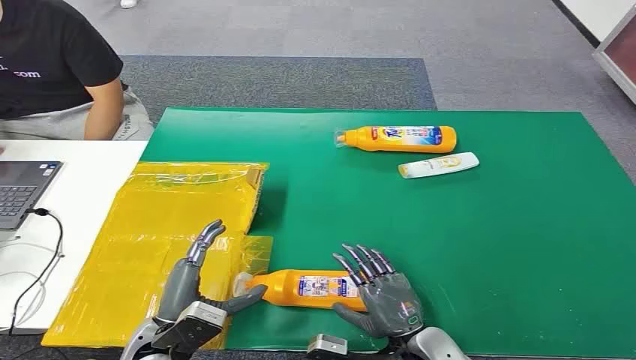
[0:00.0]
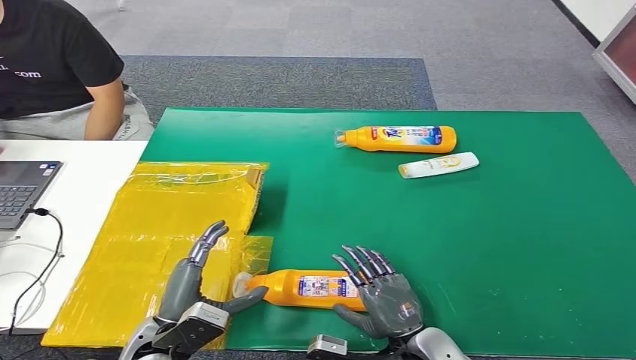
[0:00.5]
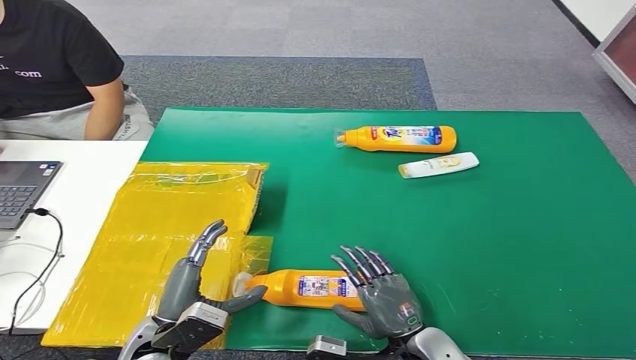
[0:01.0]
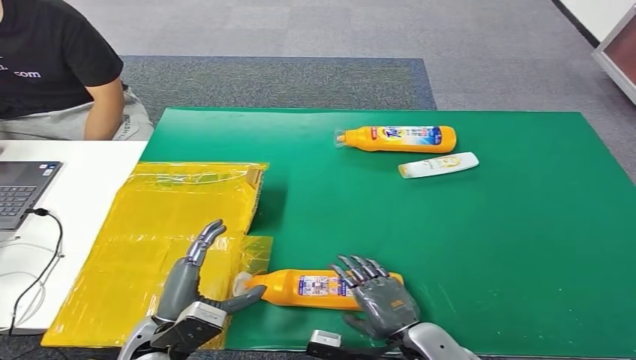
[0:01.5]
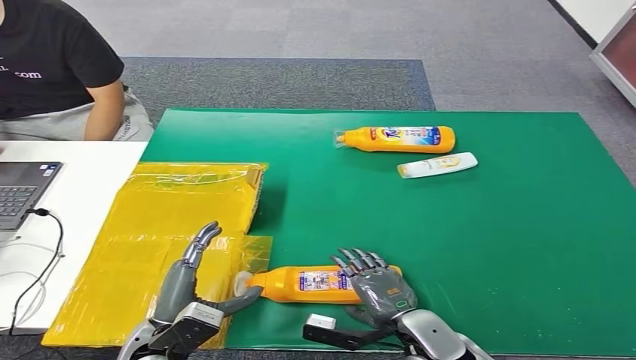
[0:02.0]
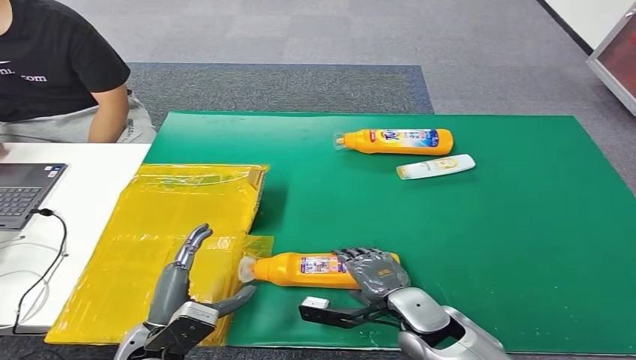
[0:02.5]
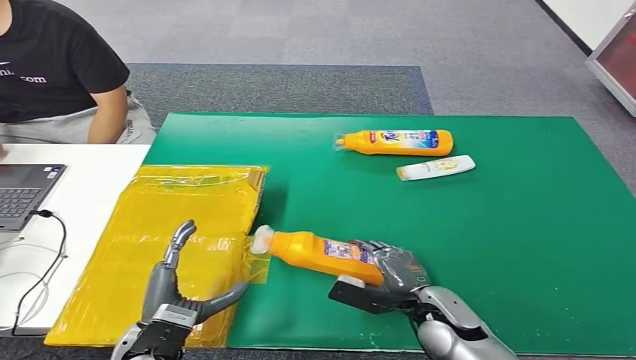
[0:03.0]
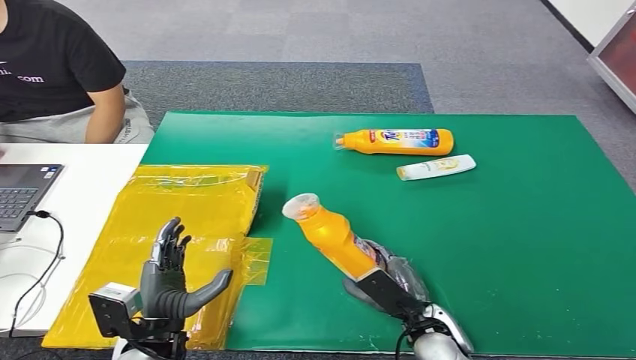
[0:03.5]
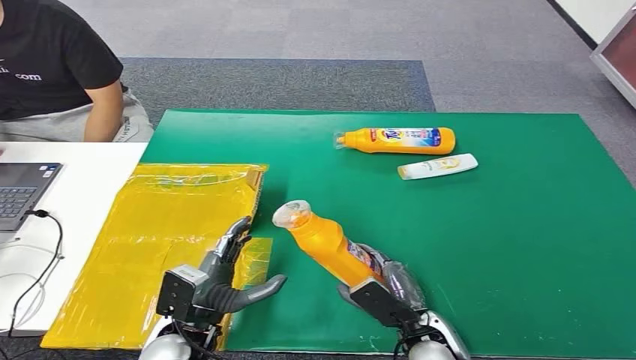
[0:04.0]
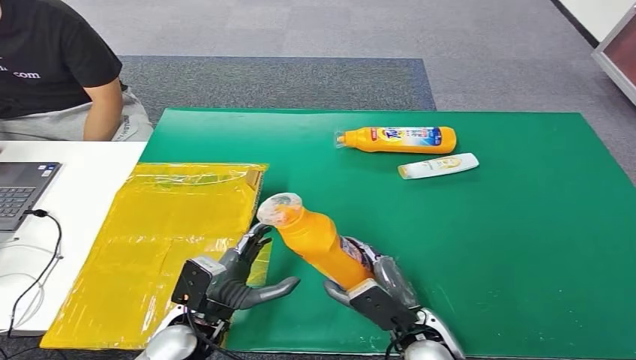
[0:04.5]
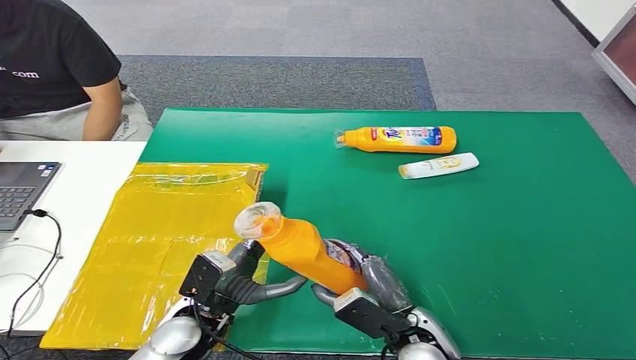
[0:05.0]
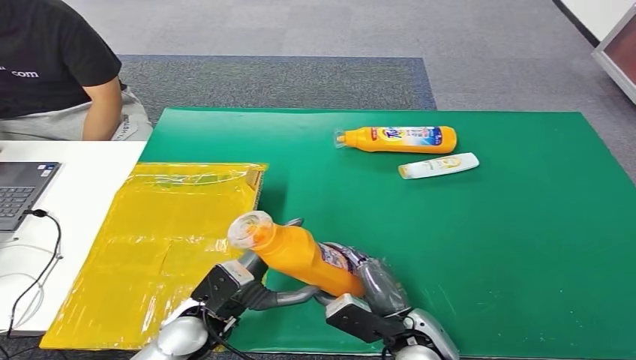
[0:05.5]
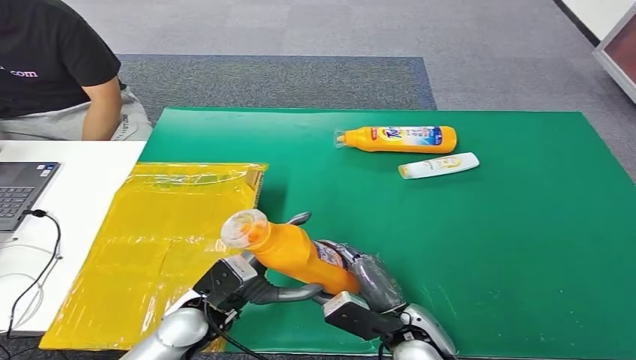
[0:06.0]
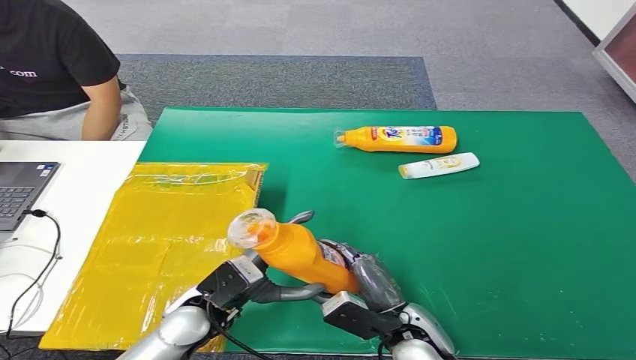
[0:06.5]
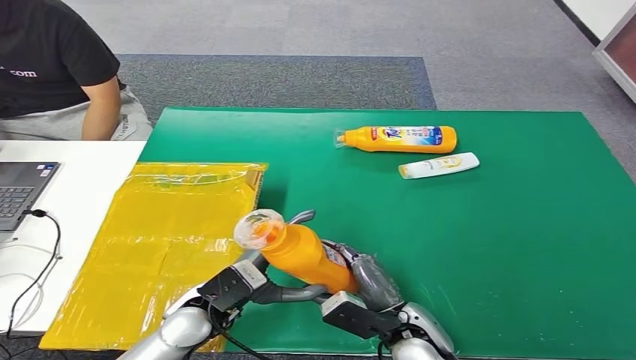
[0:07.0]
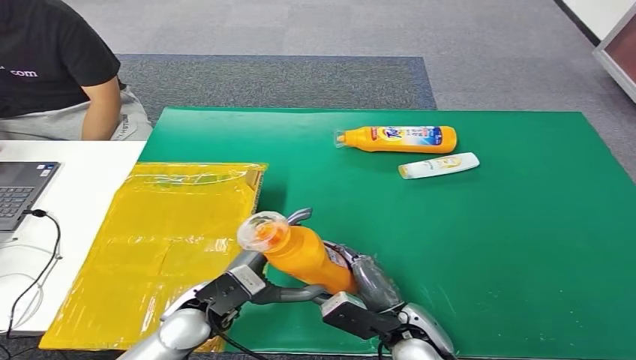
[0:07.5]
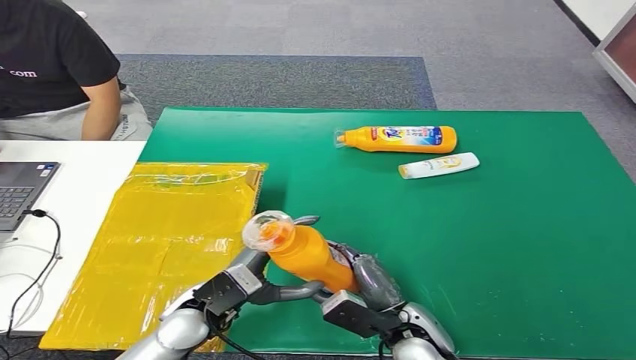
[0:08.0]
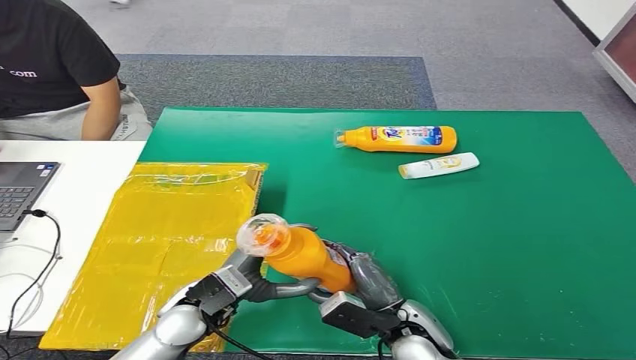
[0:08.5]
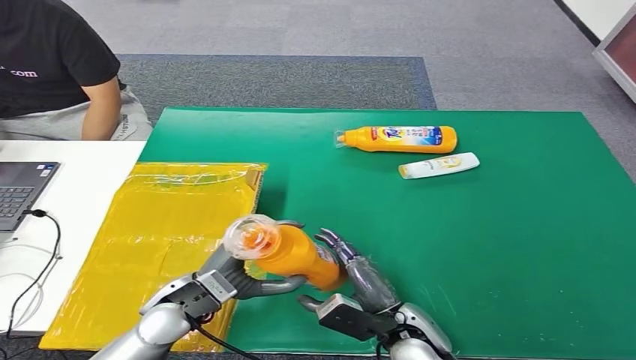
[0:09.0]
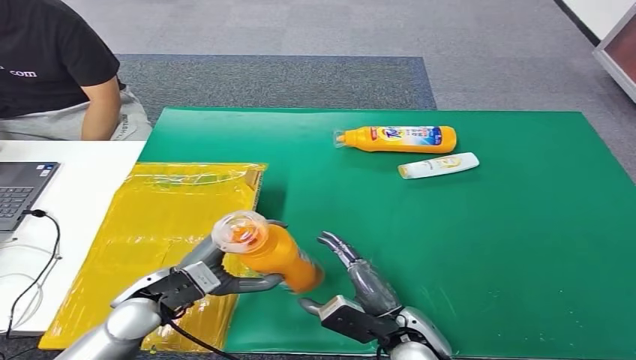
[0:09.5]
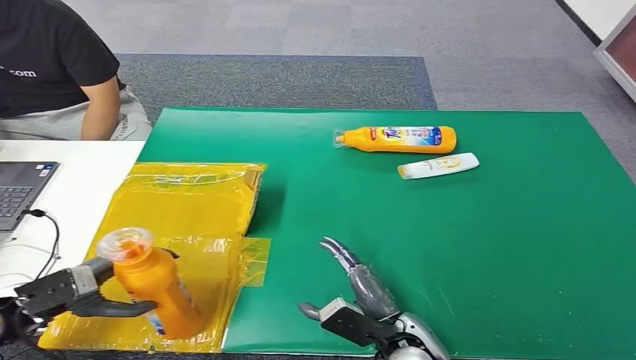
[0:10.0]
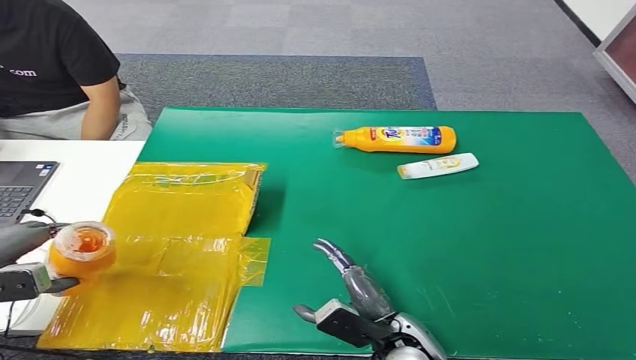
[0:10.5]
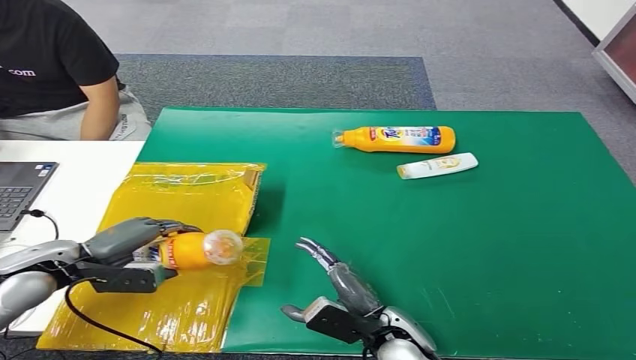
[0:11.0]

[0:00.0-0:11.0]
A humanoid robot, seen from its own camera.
Step, 0:00.0 to 0:03.5: Pick up the bottle from the table.
Step, 0:04.5 to 0:11.0: Turn the bottle to the front side.
0:05.5 to 0:09.0: The hands move only a little.
0:09.0 to 0:11.0: The left hand heads to the left, covering approximately 20 cm.
